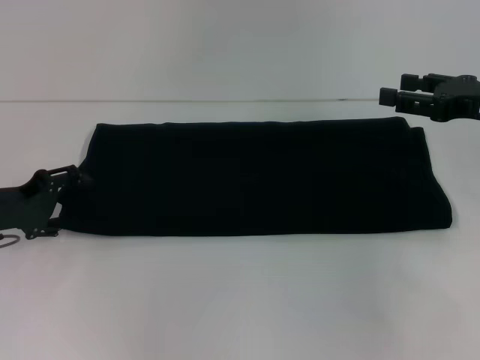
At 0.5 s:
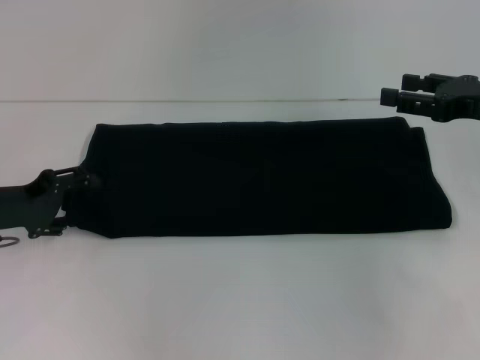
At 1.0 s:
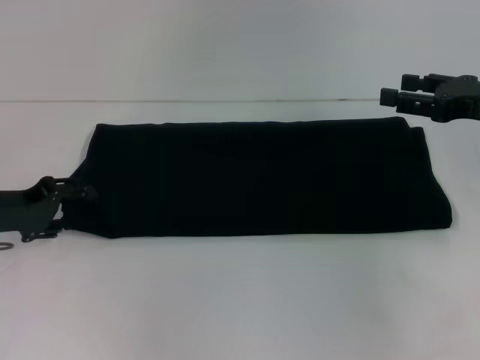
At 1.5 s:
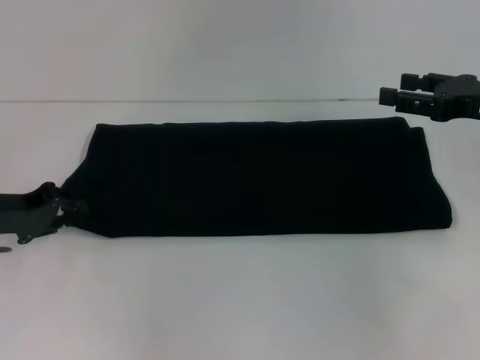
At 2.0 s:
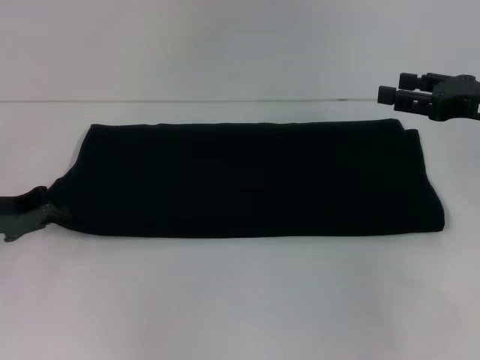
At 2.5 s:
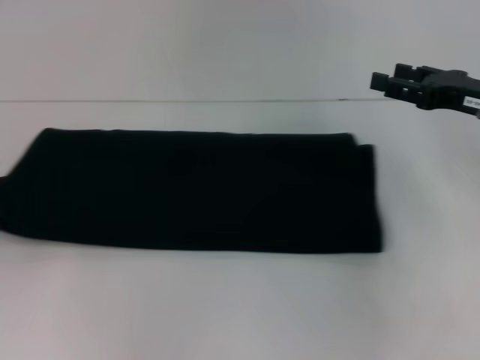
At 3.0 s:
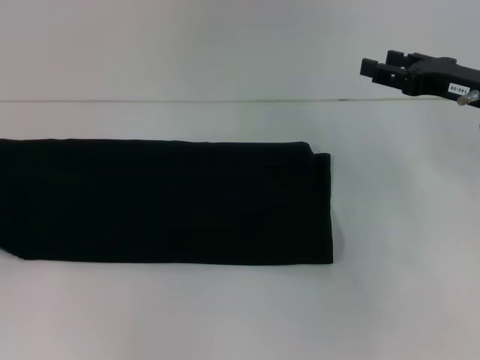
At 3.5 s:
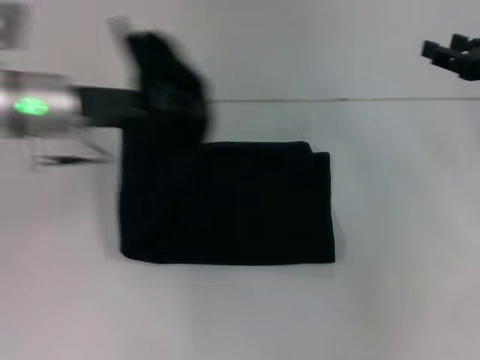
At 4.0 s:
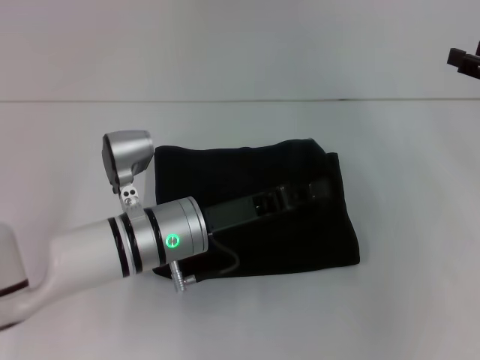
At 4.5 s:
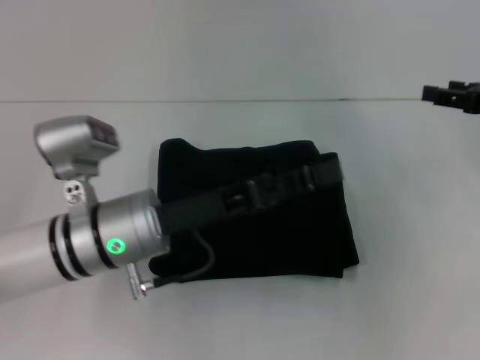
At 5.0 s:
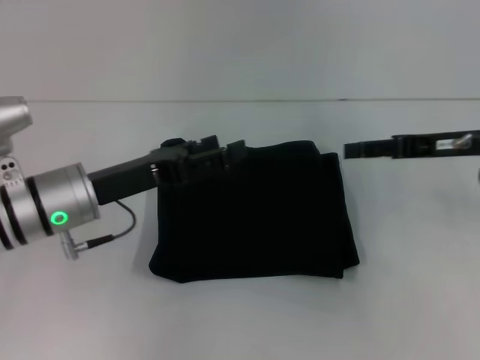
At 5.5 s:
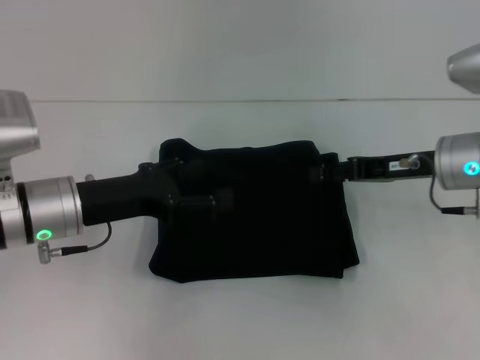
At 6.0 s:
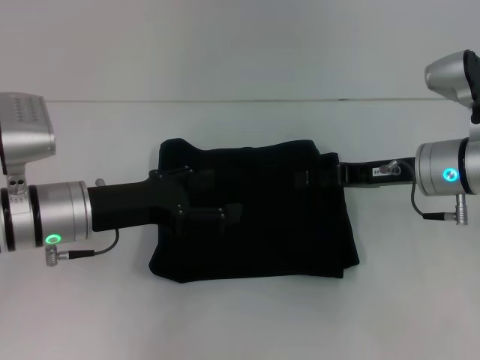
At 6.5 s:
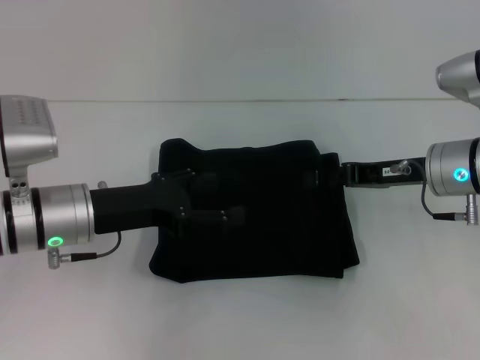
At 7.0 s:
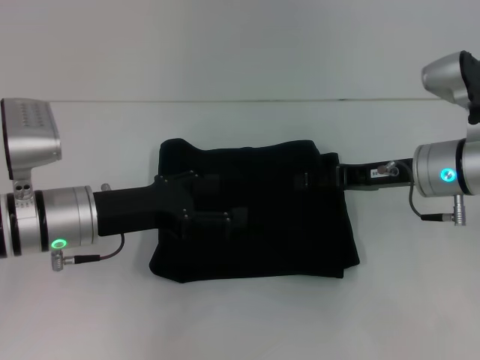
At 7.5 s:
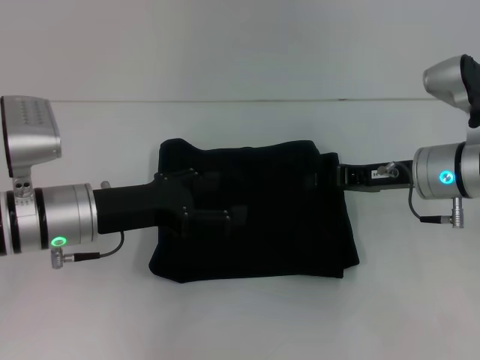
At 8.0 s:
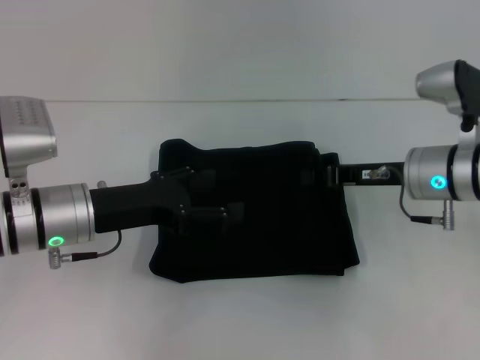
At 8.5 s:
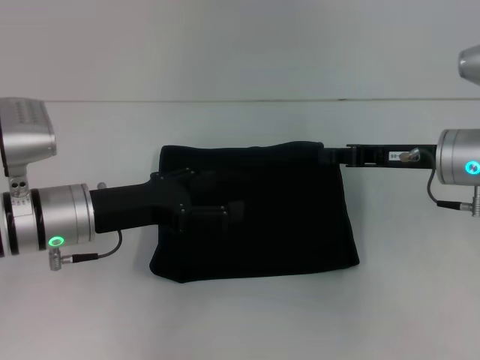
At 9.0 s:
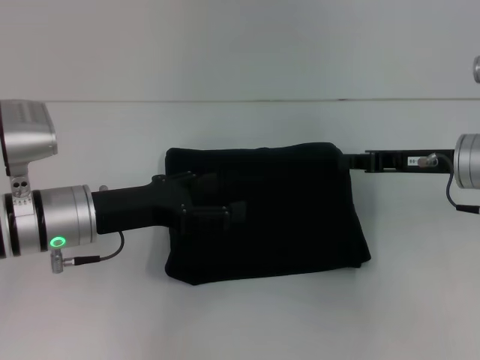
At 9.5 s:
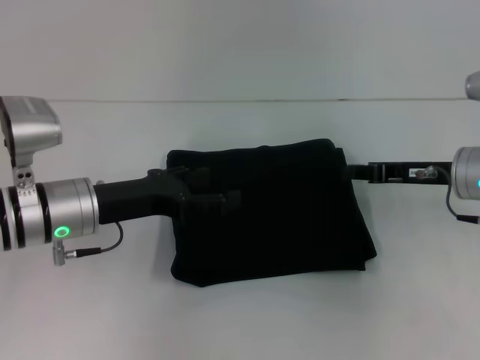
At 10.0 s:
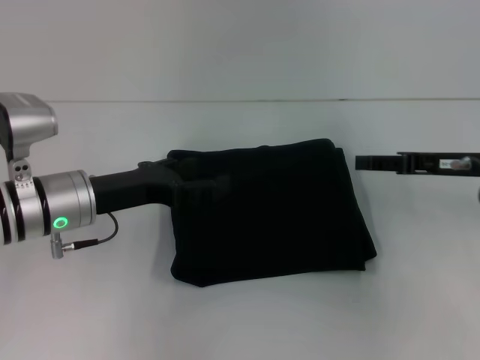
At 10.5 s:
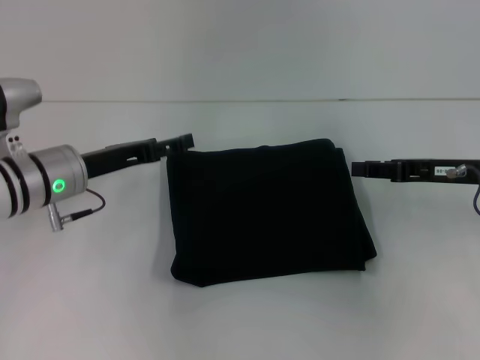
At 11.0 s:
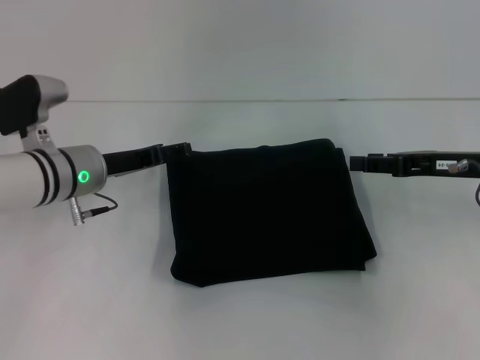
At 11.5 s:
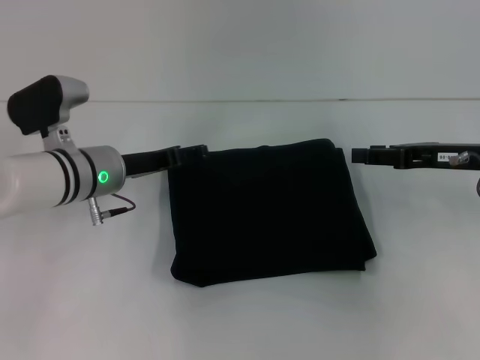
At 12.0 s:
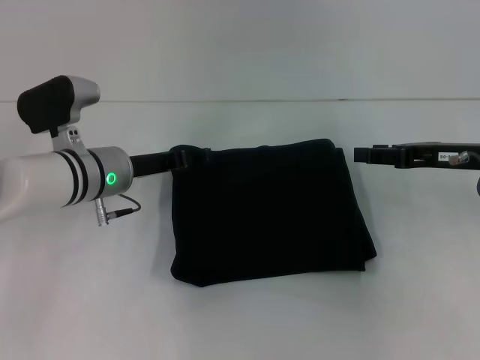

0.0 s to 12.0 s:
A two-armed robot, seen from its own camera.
Step, 0.0 to 4.0 s: Fold the clothes with your left hand.
0.0 to 2.0 s: The left gripper closes its fingers.
2.0 to 4.0 s: The left gripper is displaced to the right by some 25 cm.
4.0 to 6.0 s: The grippers both shift to the left by approximately 10 cm. The left gripper opens its fingers.
6.0 to 8.0 s: The right gripper closes.
8.0 to 10.0 s: The right gripper heads to the right, covering some 10 cm, and opens up.
10.0 to 12.0 s: The left gripper moves forward, roughly 5 cm.

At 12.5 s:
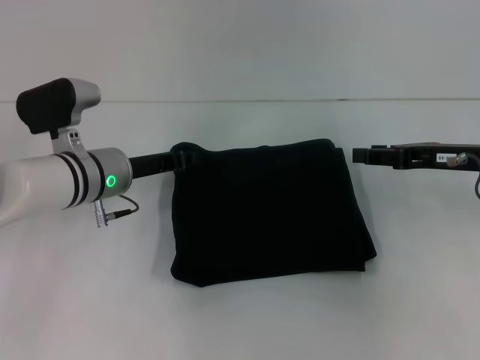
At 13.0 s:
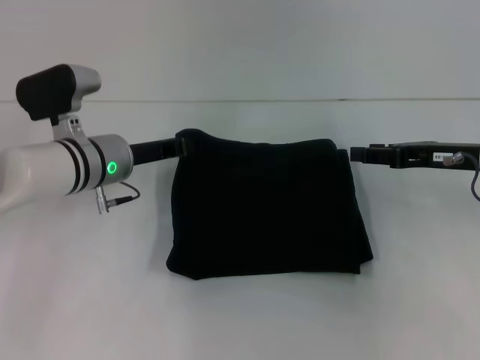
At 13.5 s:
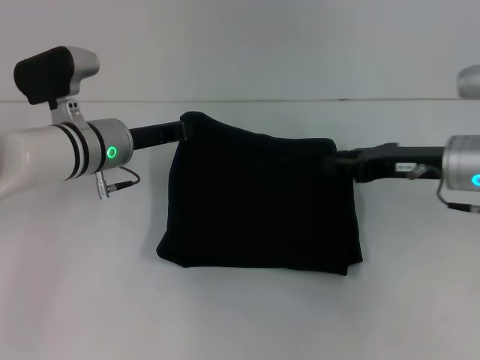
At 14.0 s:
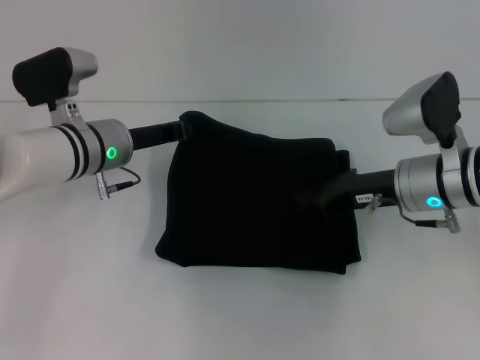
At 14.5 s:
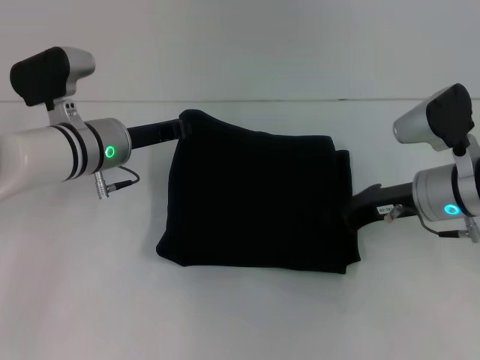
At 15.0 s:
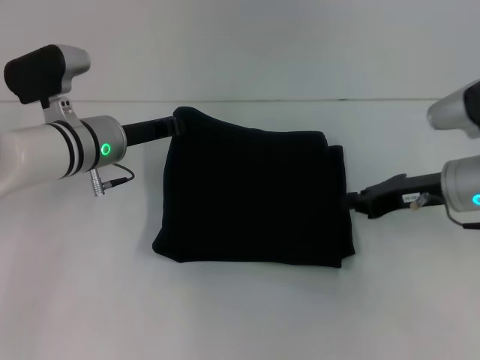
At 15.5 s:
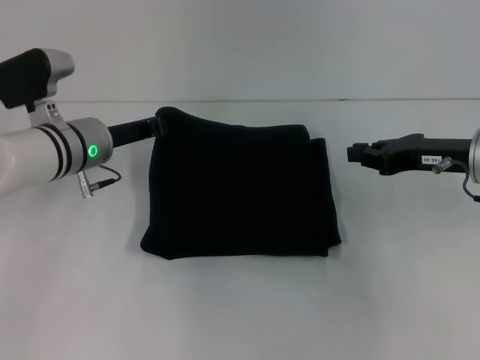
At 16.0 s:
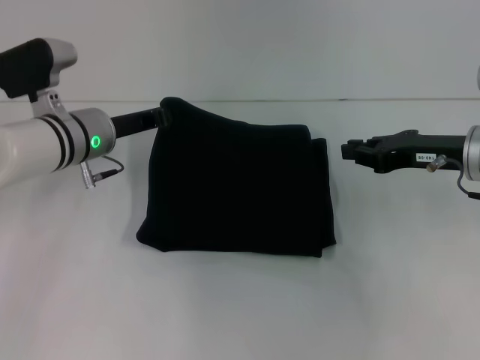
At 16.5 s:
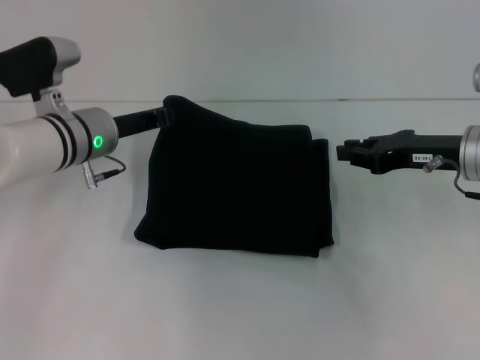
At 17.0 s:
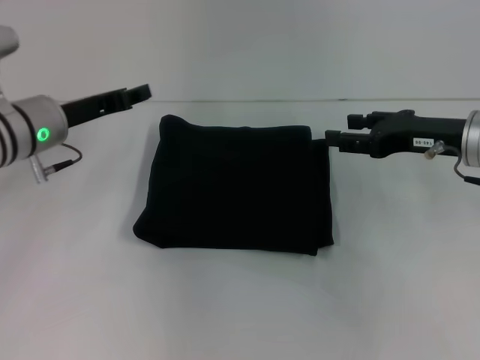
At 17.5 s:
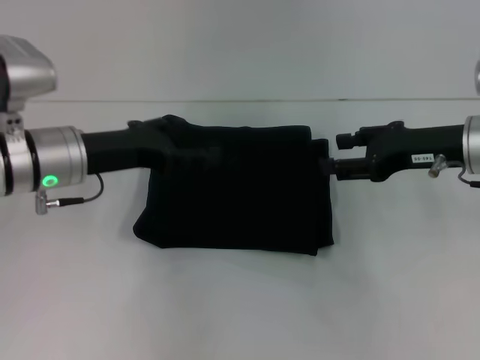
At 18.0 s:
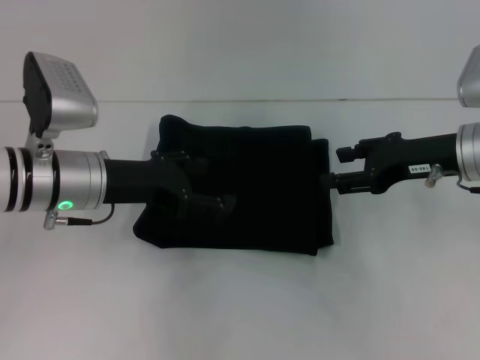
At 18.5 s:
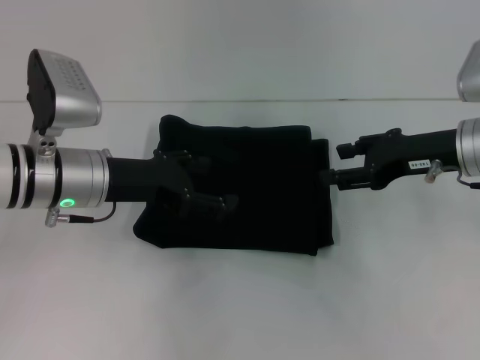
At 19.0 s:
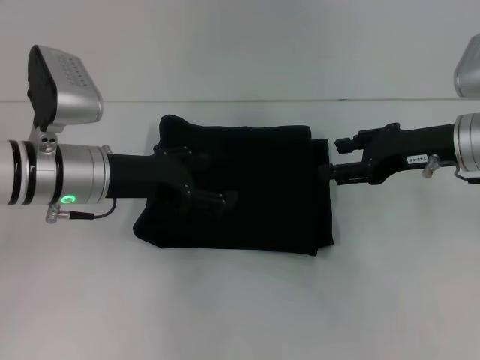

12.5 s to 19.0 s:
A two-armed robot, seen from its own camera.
12.5 to 14.5 s: The left gripper closes, while the right gripper goes roughly 5 cm to the left, and closes up.
14.5 to 17.0 s: The right gripper moves about 5 cm, and opens; the left gripper goes approximately 5 cm to the left, and opens its fingers.
17.0 to 19.0 s: The left gripper changes place by some 5 cm, and opens its fingers.

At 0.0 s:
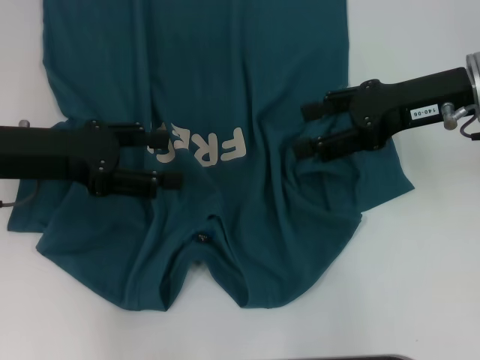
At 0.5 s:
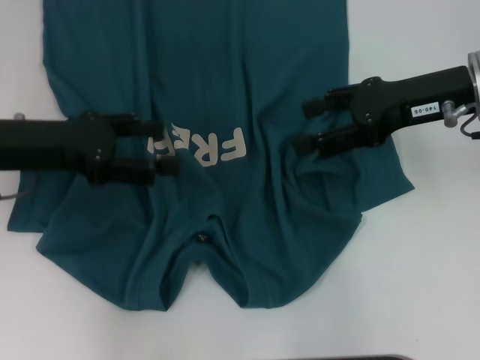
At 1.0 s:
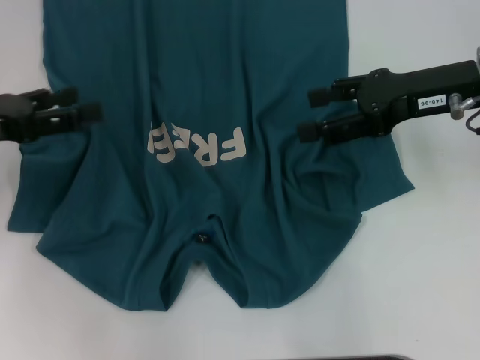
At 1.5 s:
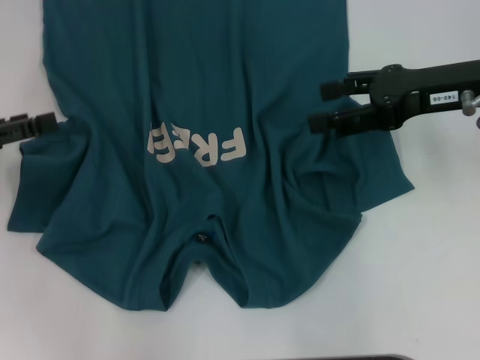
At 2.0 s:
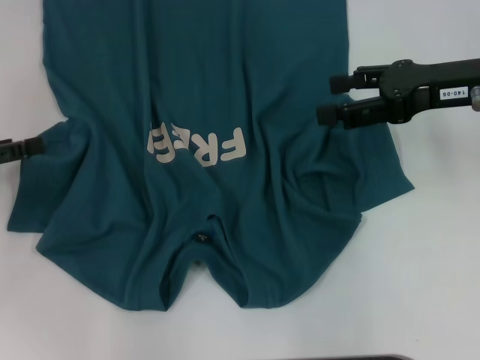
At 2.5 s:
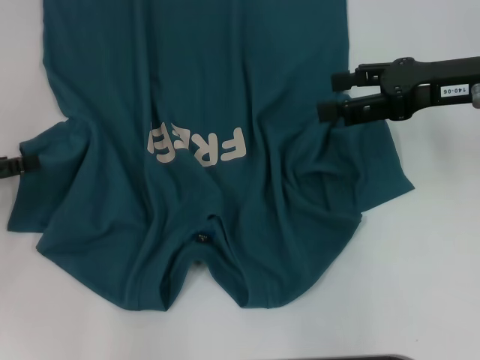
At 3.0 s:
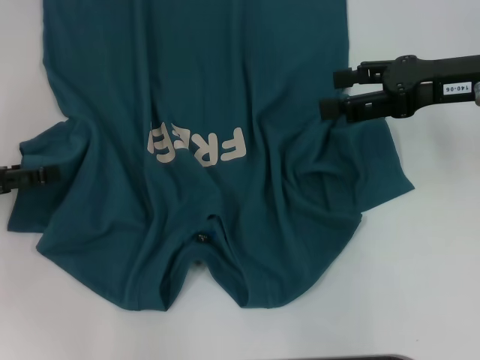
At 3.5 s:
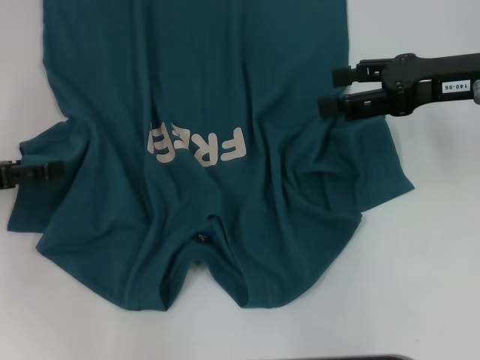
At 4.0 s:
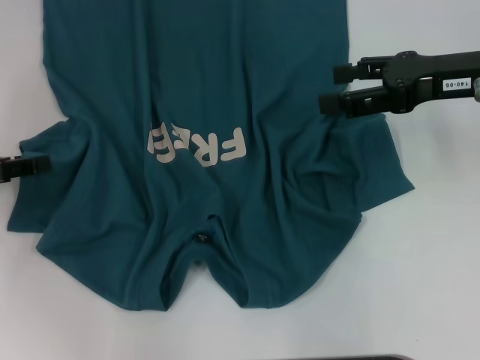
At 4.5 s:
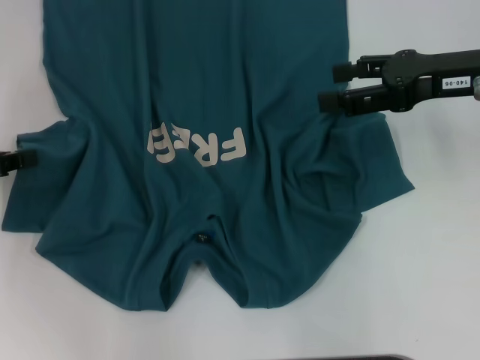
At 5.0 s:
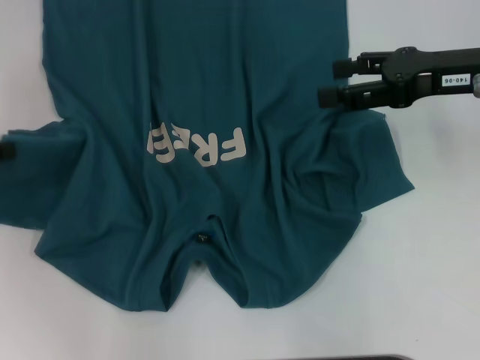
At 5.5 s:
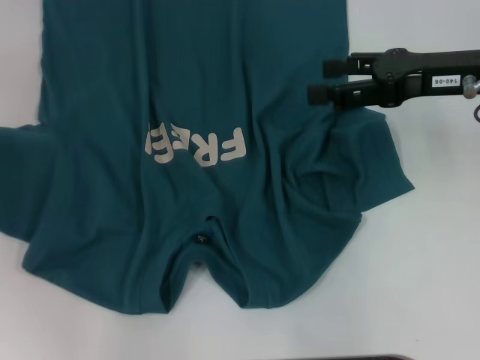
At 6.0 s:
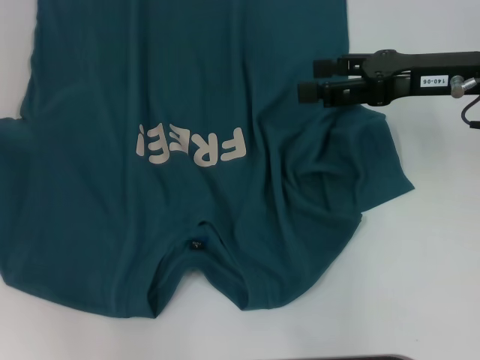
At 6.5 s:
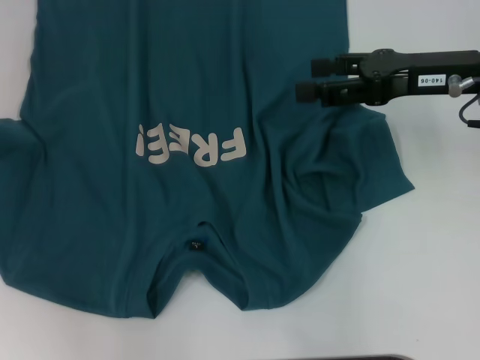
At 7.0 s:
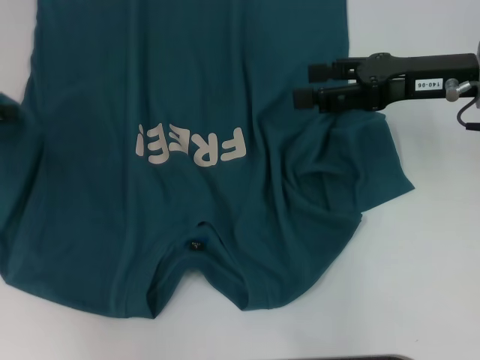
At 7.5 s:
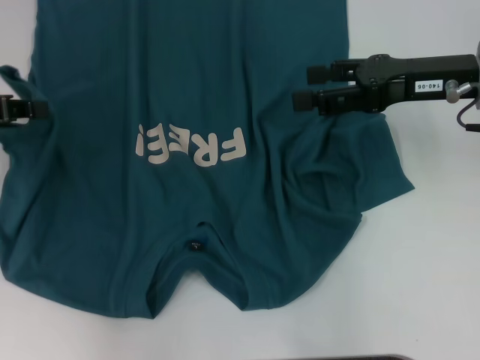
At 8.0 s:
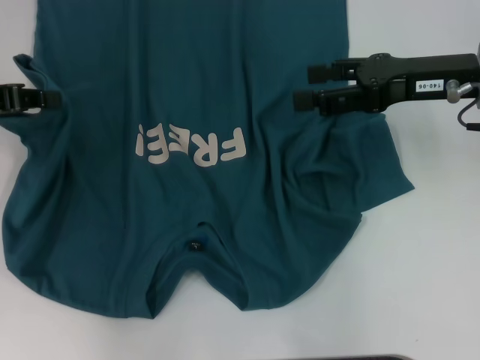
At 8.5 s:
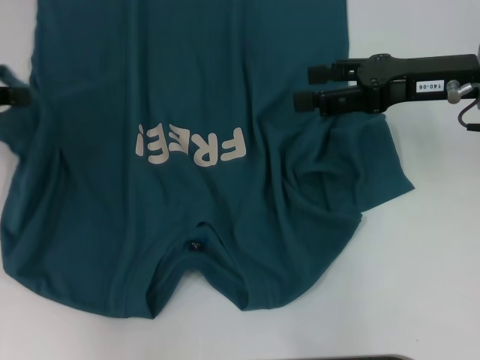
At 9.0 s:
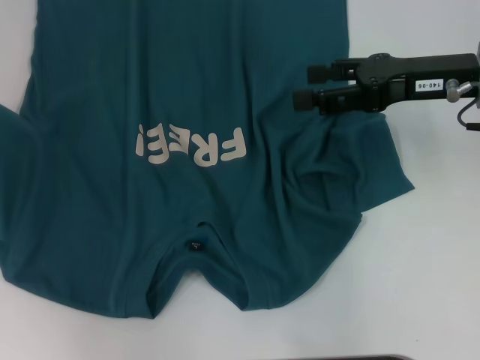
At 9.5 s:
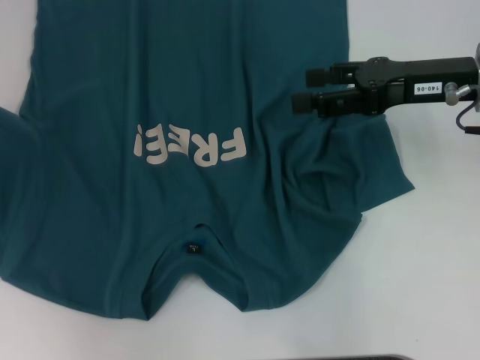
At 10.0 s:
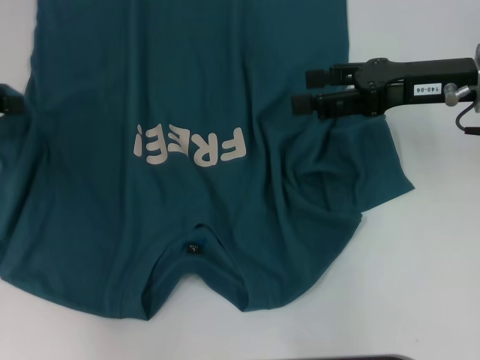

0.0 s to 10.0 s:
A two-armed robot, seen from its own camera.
0.0 to 2.0 s: The left gripper heads to the left, covering about 10 cm.
2.0 to 4.0 s: The grippers make only small movements.
4.0 to 6.0 s: The left gripper goes some 10 cm to the left and upward, and closes its fingers.
6.0 to 8.0 s: The left gripper shifts roughly 10 cm to the right.
